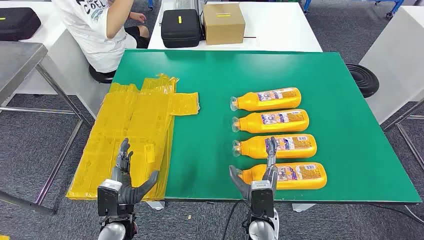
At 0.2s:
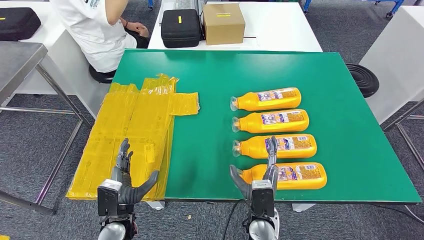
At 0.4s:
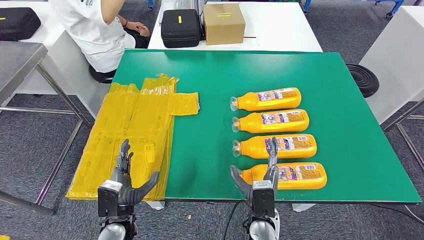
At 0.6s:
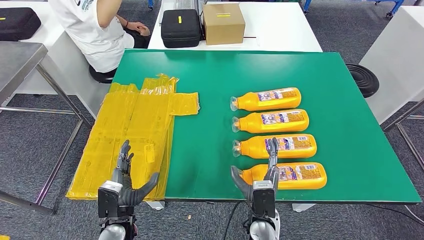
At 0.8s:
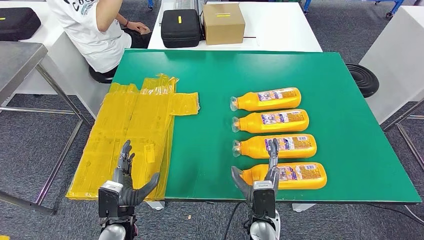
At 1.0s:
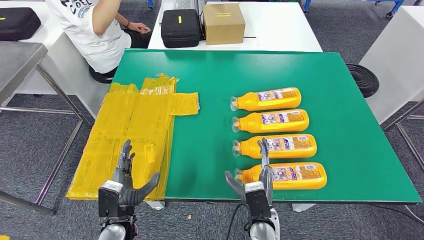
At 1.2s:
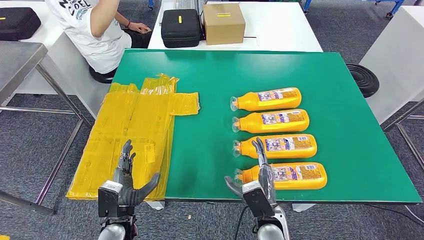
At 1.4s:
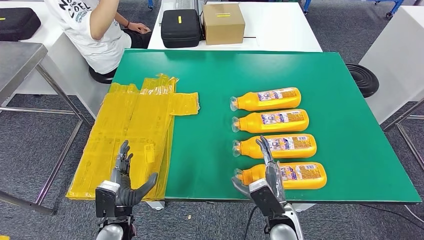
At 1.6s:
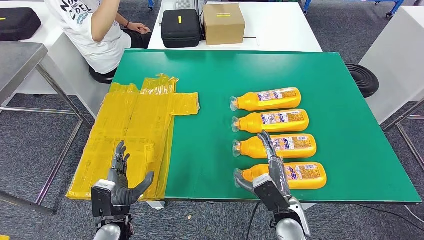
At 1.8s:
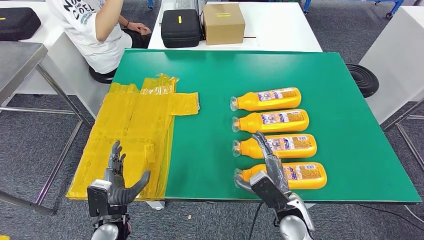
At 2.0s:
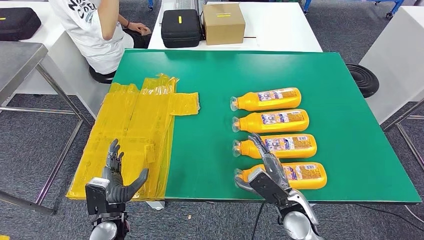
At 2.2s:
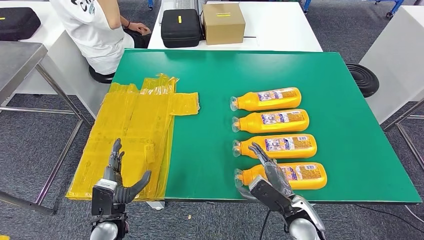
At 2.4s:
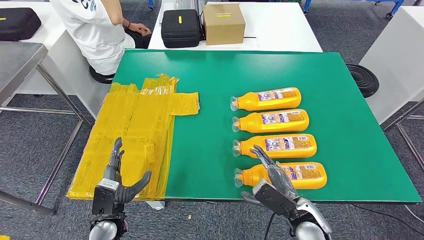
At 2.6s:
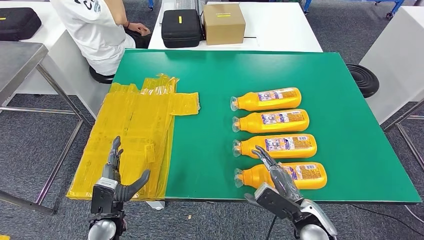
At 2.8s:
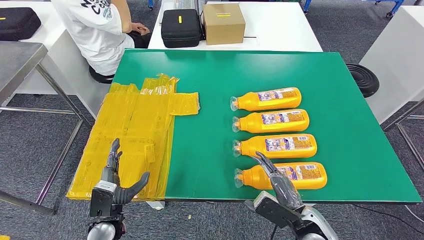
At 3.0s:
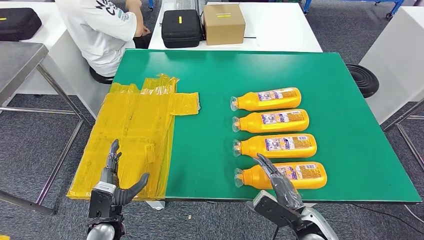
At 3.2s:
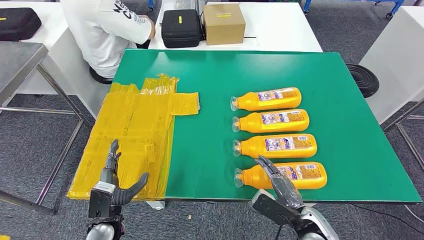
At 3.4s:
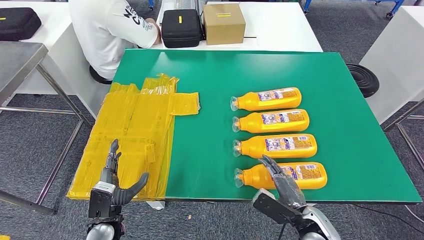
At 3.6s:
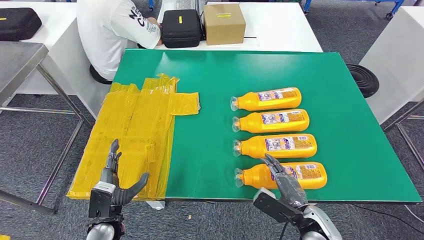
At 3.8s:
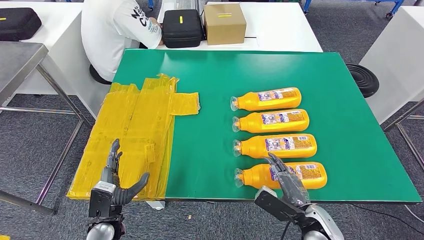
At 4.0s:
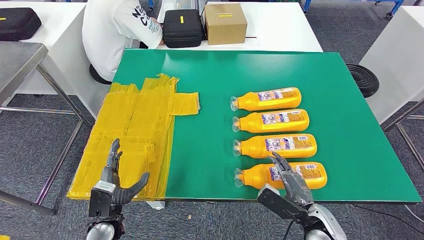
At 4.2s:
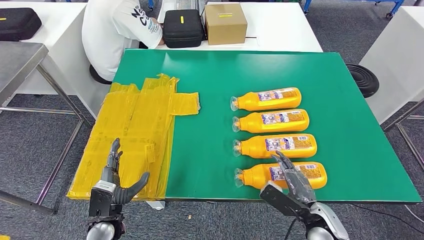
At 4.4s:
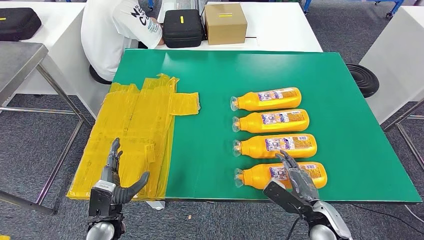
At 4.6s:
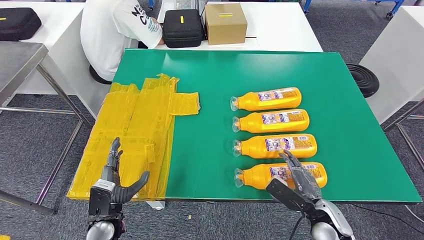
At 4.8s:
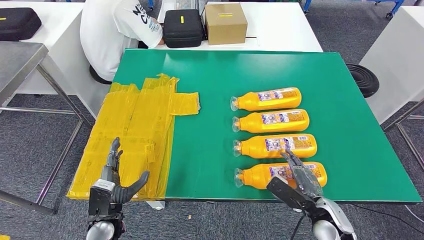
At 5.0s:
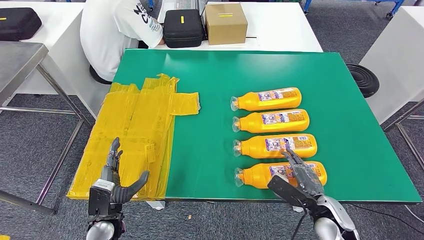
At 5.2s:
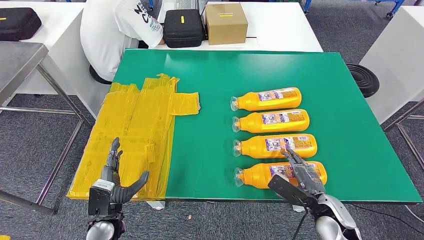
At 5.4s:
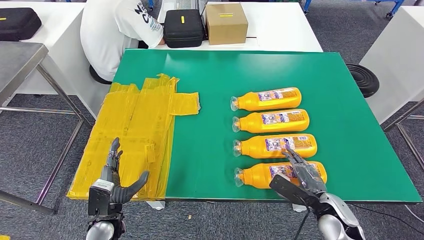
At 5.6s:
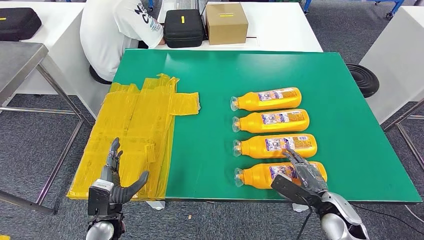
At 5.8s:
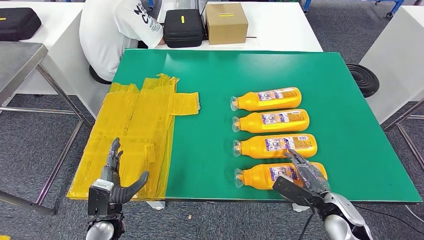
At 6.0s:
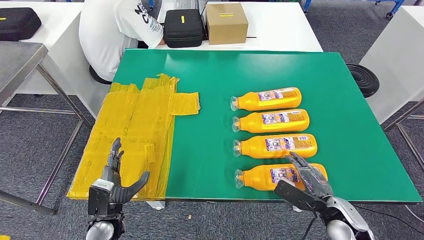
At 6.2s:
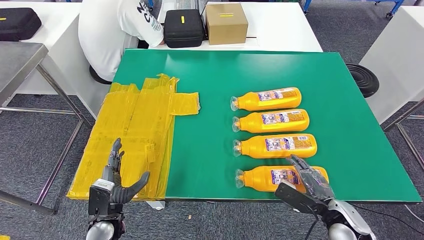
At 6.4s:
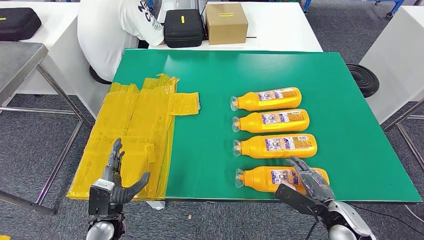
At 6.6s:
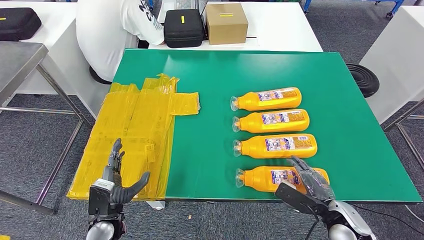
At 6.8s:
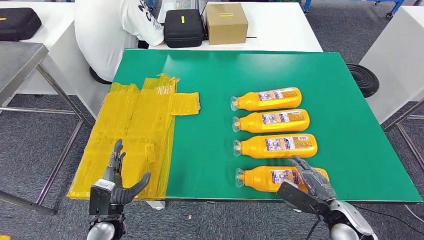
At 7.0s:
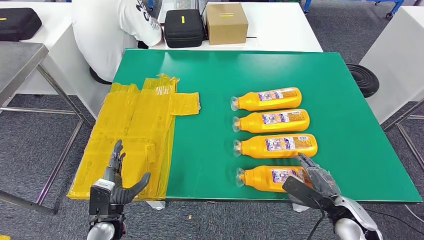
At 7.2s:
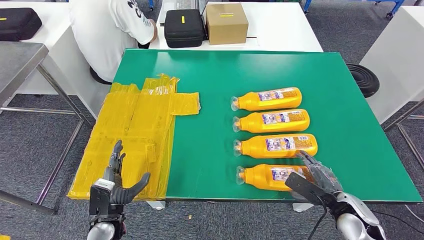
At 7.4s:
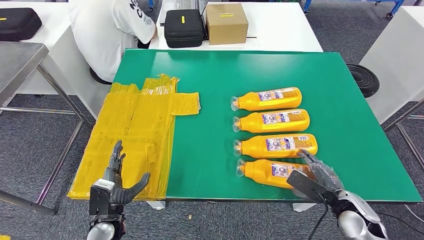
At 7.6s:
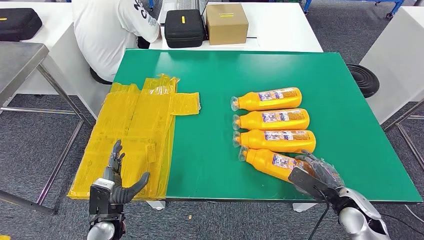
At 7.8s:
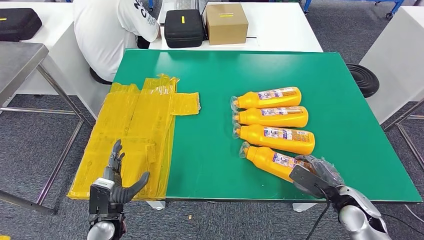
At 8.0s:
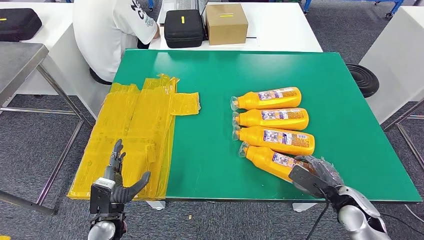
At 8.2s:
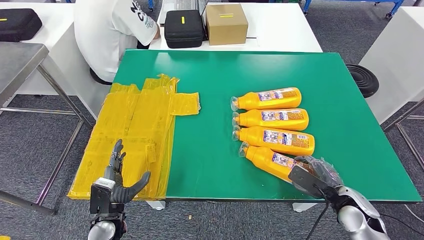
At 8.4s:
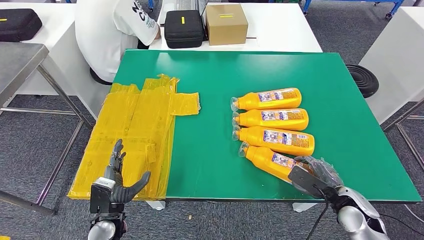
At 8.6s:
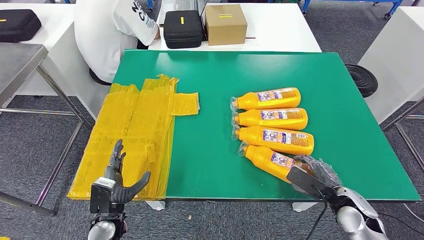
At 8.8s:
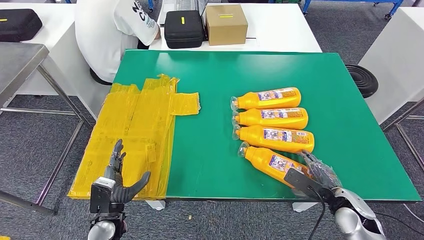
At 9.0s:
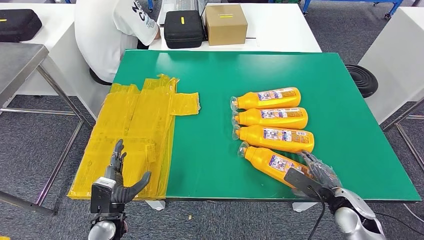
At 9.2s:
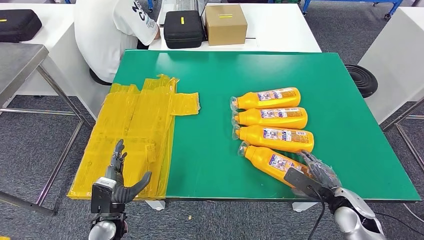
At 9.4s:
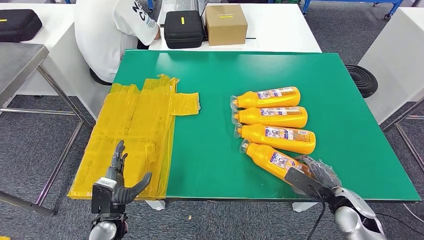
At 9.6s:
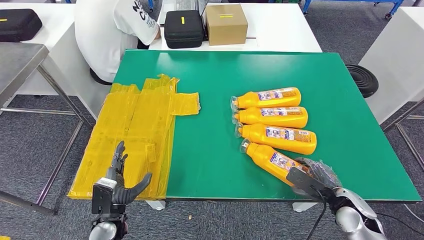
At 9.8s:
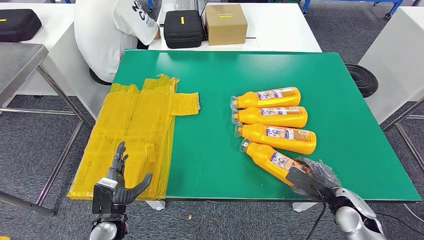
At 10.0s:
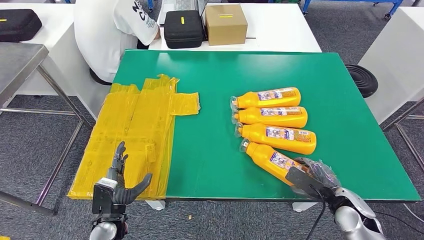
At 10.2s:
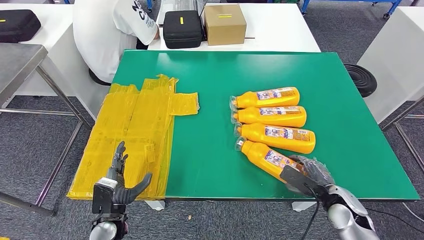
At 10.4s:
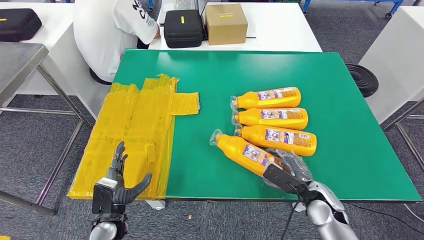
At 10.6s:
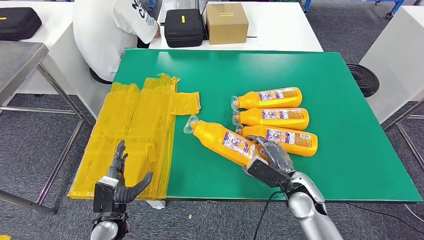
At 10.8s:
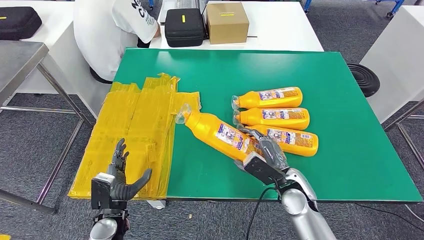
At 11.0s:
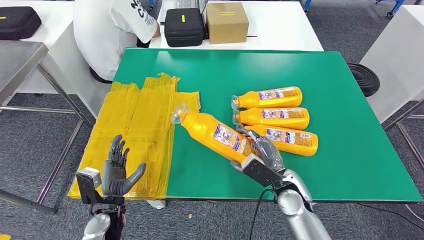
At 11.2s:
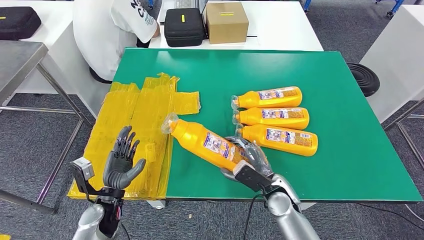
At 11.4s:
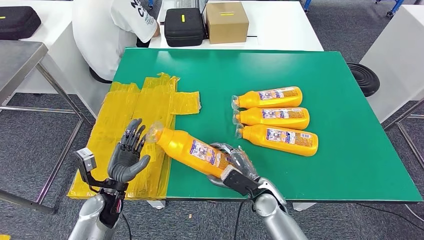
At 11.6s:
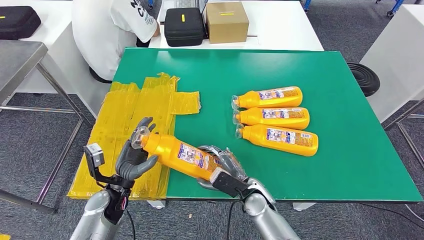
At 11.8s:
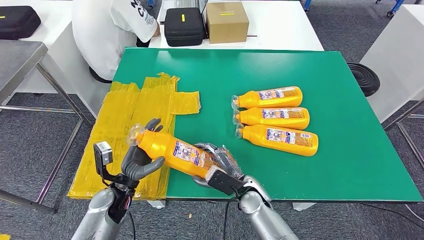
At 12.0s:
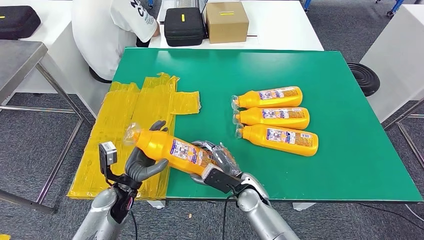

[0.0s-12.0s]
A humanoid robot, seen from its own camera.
Step, 0.0s to 12.0s: Take the bottle from the table.
1.6s to 3.0s: The right hand travels to the right by roughly 5 cm.
3.0s to 4.4s: There are only small adjustments of the hands.
4.4s to 6.0s: The hands move only a little.
6.0s to 7.6s: The hands make only small movements.
7.6s to 9.0s: Neither hand changes place.
9.0s to 10.4s: The right hand moves to the left, roughly 5 cm.

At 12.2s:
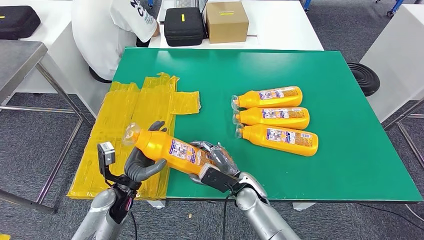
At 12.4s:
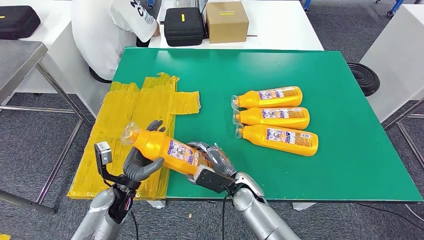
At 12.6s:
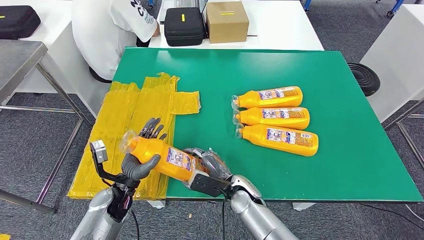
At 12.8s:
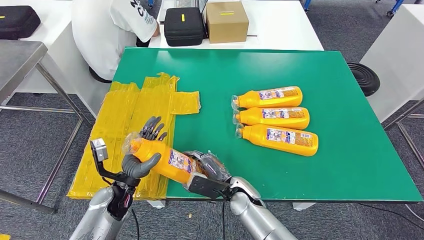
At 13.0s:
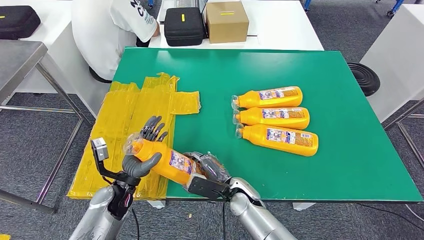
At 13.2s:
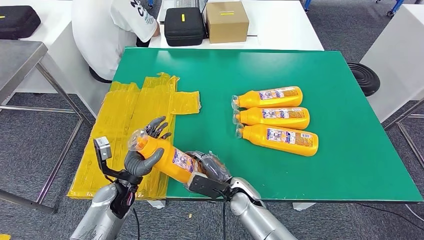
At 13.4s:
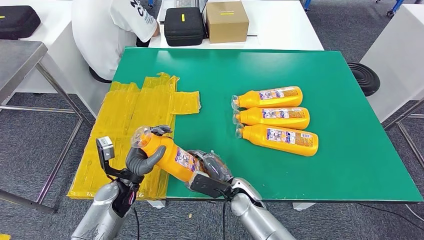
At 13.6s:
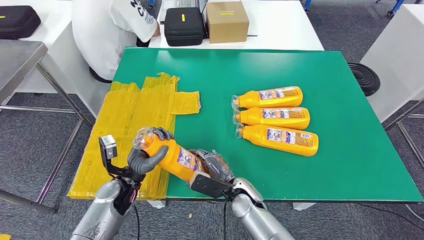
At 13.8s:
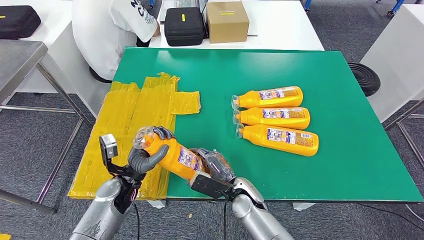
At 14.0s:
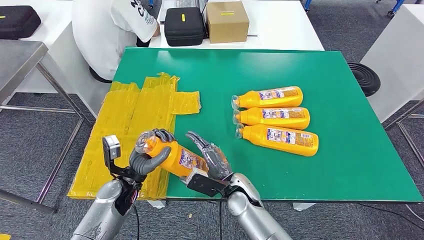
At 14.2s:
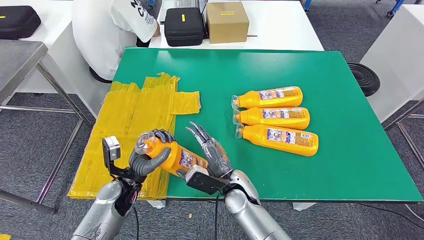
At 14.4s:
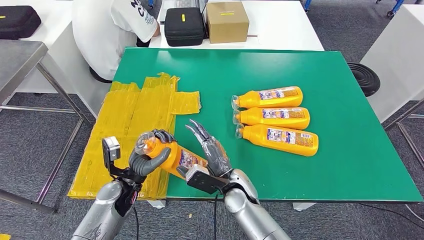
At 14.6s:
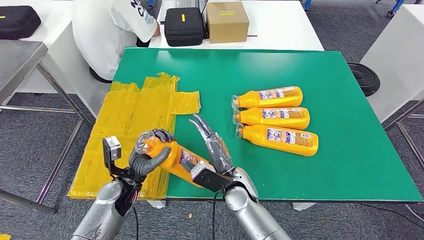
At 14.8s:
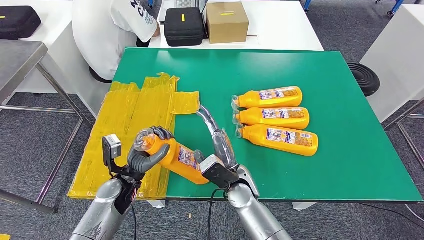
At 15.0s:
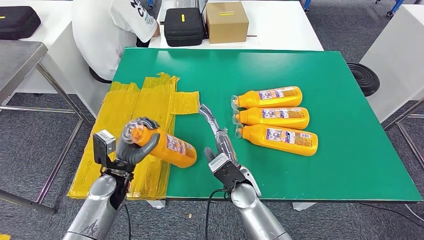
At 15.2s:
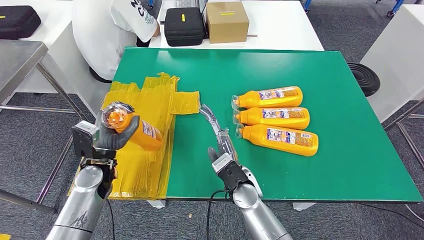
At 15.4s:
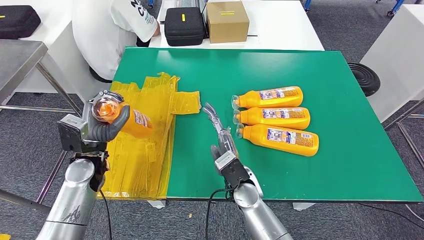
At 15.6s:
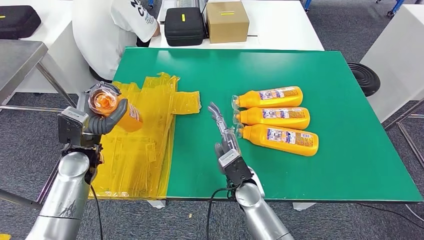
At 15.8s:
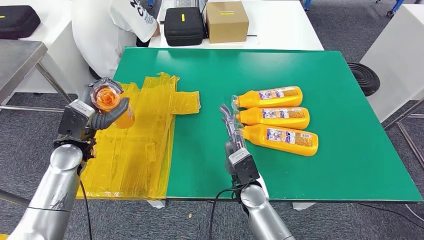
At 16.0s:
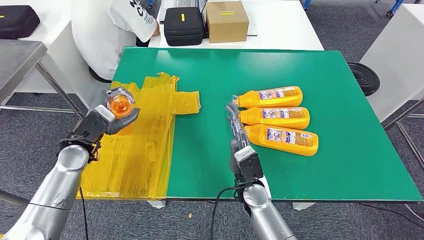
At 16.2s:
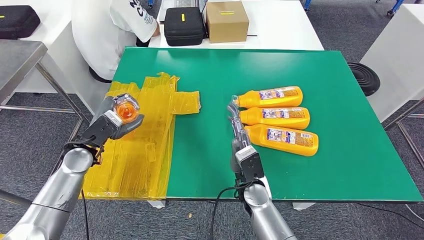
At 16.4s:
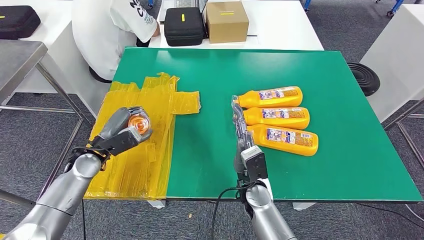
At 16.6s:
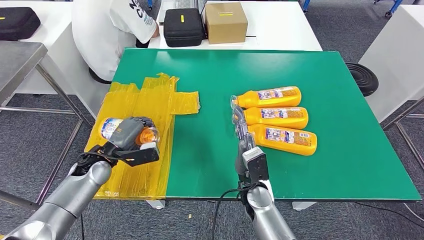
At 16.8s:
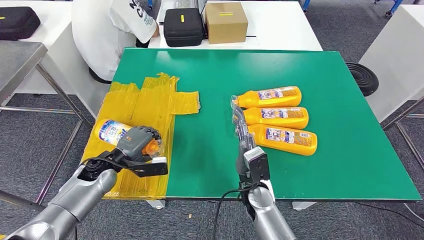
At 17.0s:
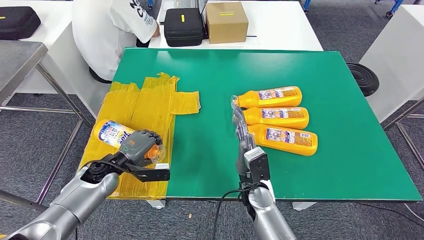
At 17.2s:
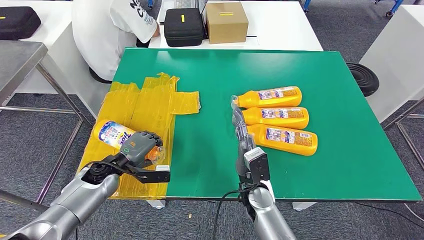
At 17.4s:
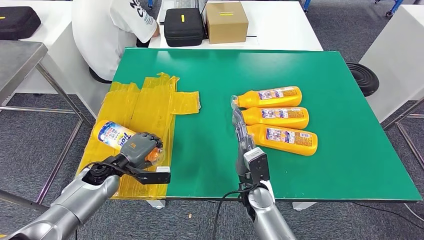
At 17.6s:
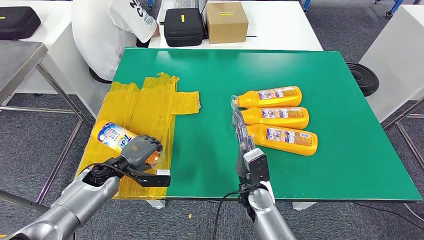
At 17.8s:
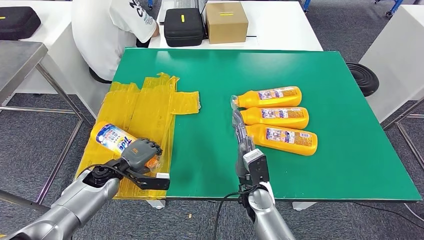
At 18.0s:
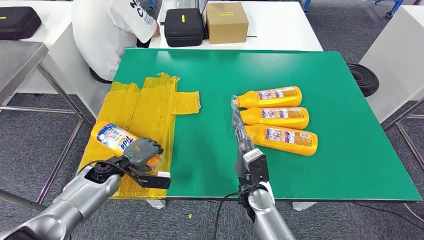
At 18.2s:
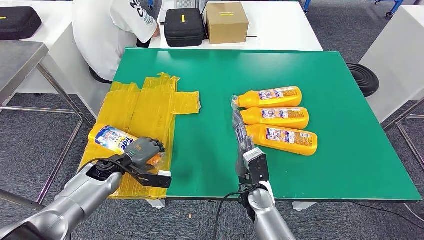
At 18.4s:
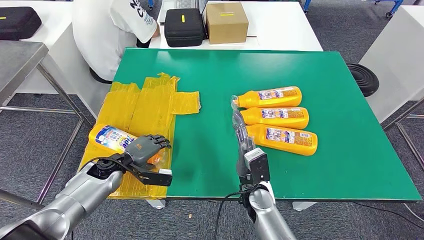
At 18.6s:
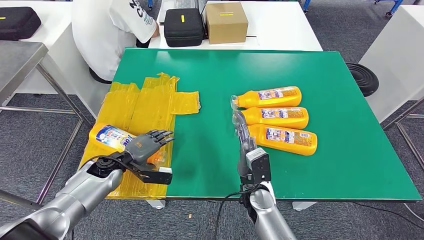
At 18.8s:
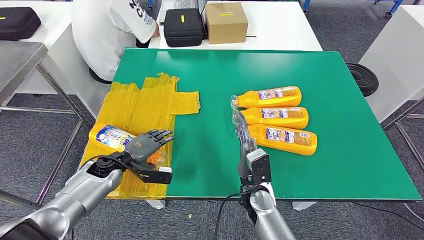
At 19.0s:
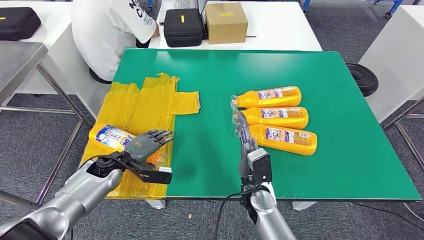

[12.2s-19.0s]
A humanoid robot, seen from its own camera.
Step, 12.2s to 17.2s: Flip the bottle to face forward.
12.2s to 13.6s: The hands move only a little.
13.6s to 15.0s: The right hand heads upward, covering roughly 5 cm.
15.0s to 16.2s: The left hand is displaced to the left, upward and forward by approximately 10 cm.
16.2s to 17.6s: The left hand heads downward, covering some 10 cm.
17.6s to 19.0s: The hands move only a little.
